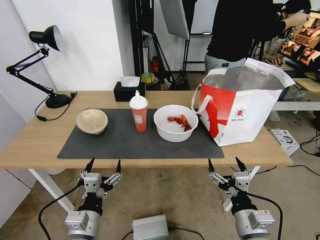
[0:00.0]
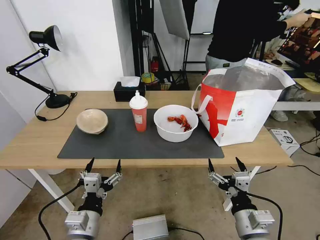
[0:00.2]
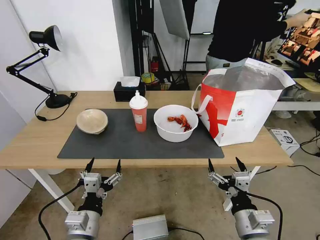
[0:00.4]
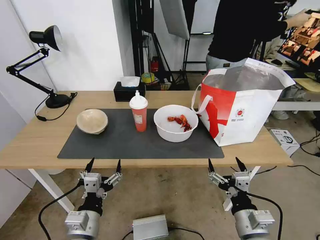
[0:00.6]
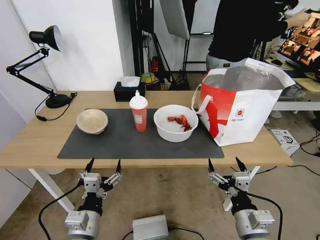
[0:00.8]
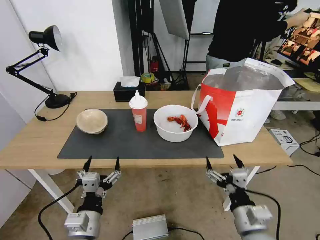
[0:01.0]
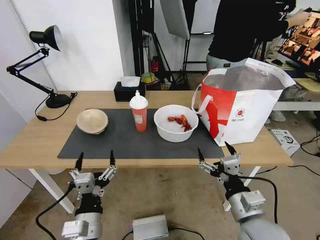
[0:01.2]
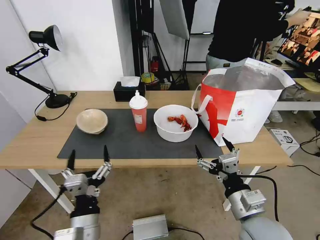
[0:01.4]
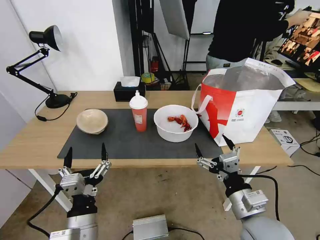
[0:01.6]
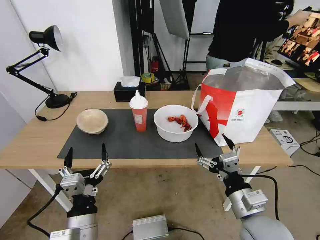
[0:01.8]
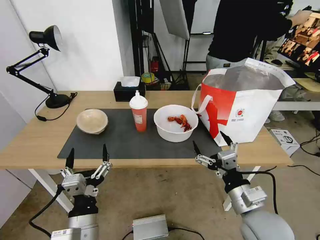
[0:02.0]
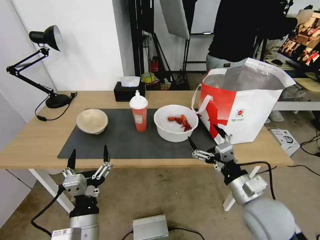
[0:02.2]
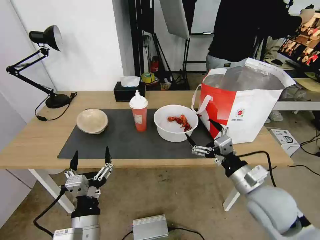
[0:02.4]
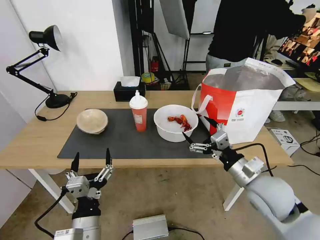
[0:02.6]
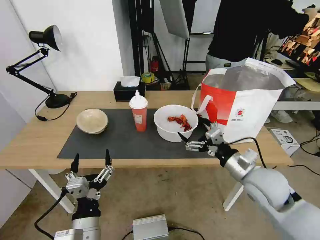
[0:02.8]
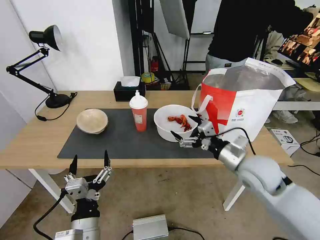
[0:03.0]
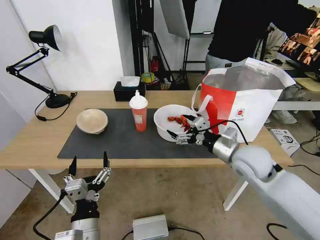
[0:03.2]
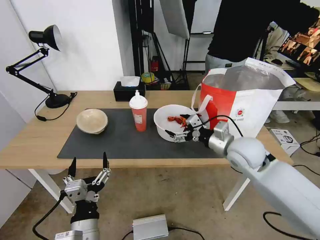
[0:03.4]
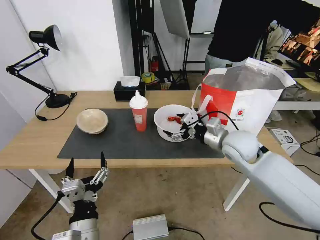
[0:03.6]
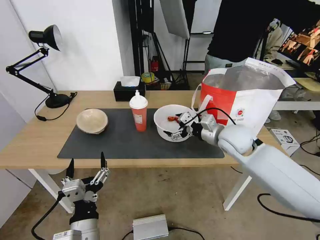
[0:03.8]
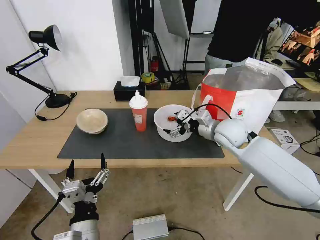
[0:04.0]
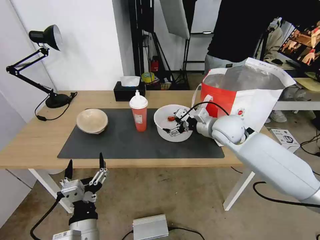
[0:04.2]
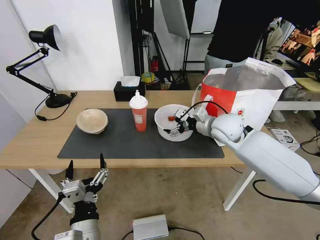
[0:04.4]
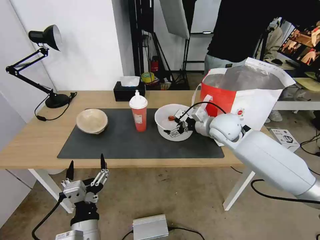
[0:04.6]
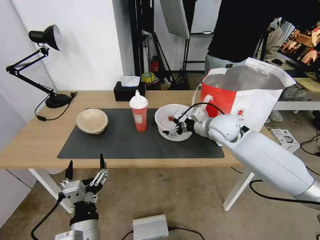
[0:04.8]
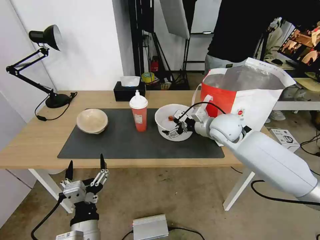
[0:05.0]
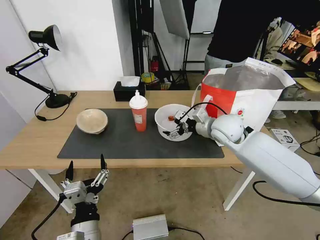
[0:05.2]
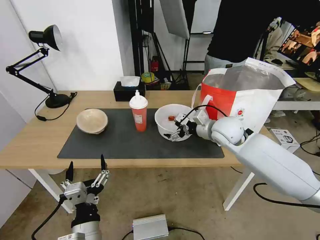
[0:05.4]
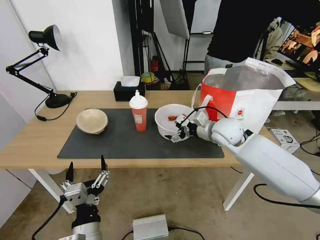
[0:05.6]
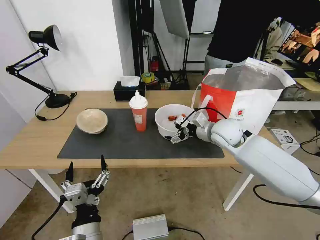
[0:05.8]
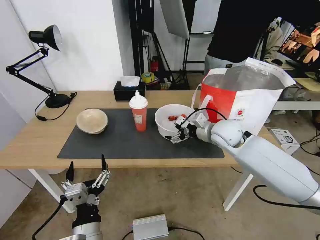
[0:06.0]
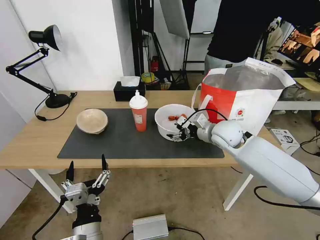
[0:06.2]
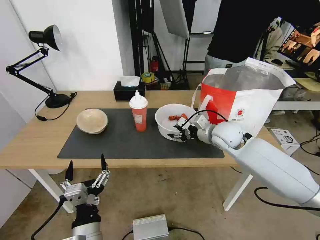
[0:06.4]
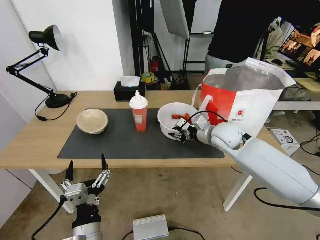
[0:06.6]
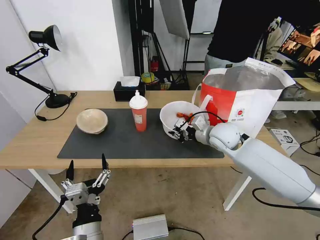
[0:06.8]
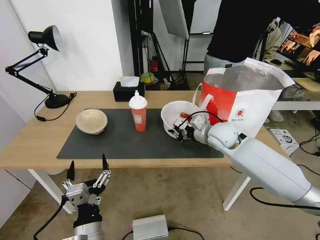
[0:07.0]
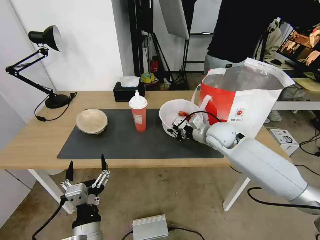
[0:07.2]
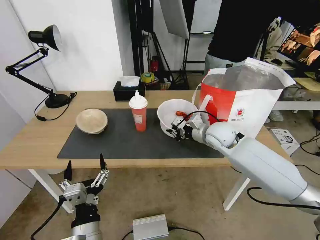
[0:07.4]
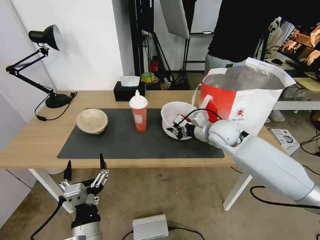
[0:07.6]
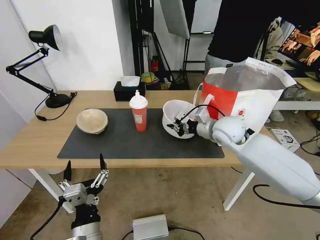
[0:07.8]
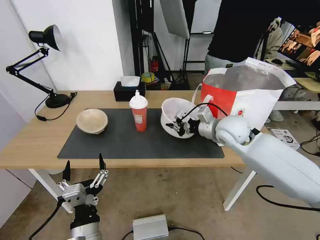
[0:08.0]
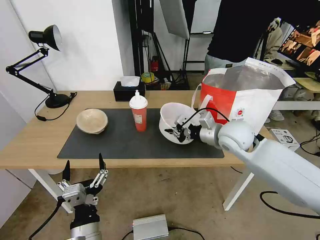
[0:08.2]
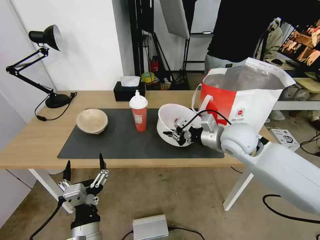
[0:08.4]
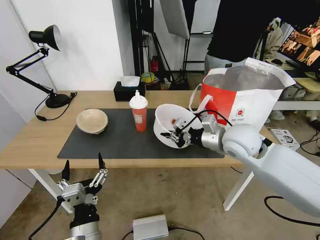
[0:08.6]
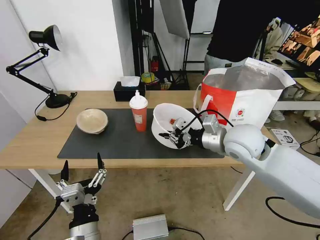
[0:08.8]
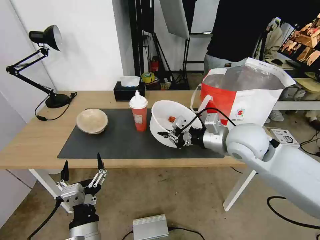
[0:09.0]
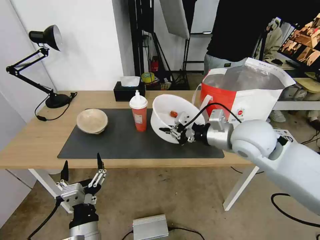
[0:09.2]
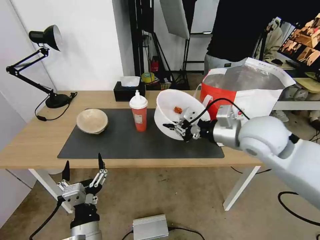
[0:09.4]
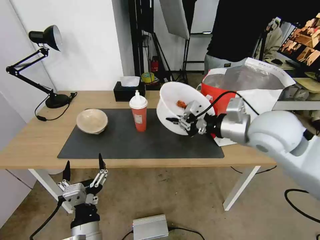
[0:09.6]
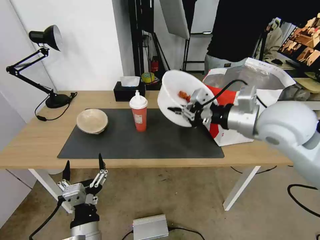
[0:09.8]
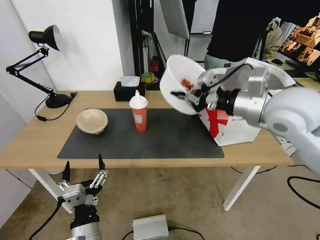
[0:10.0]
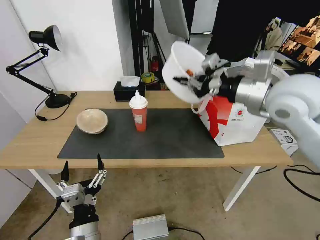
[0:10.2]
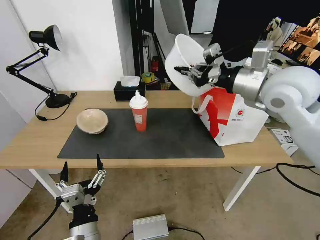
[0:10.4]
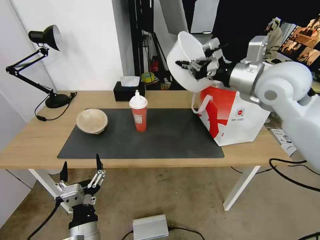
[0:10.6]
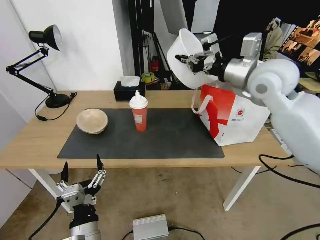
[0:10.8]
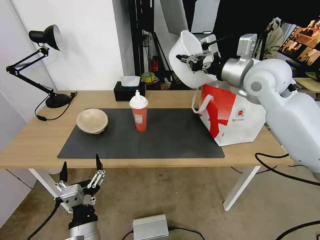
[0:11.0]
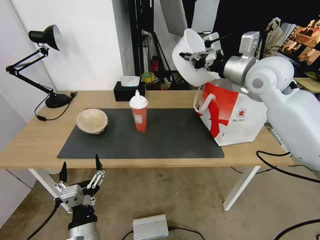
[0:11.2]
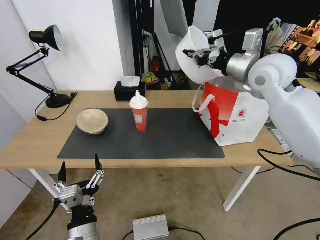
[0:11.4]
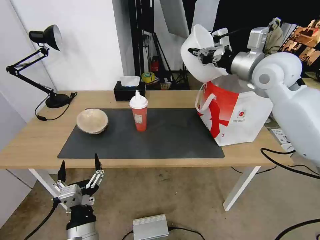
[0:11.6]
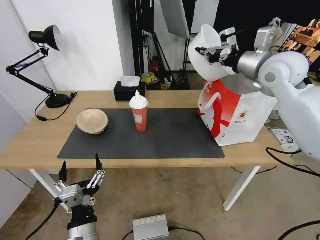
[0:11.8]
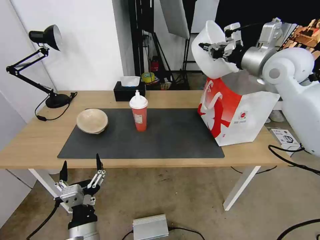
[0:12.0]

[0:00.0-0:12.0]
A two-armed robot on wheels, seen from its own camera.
Task of the whole recording: Pick up the trash from the table and place it into the takeout bag.
0:01.6 to 0:03.0: The right gripper travels forward by approximately 15 cm.
0:03.0 to 0:04.4: The right gripper heads forward, covering roughly 15 cm.
0:04.4 to 0:06.0: The grippers stay close to where they were, moving slightly.
0:06.0 to 0:07.6: The right gripper closes its fingers.
0:07.6 to 0:09.0: The right gripper is displaced backward and upward by some 10 cm.
0:09.0 to 0:10.4: The right gripper shifts roughly 15 cm upward.
0:10.4 to 0:12.0: The right gripper goes about 10 cm forward.

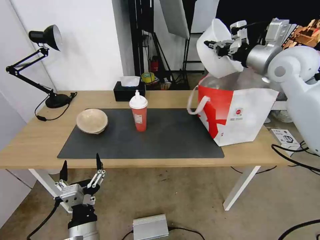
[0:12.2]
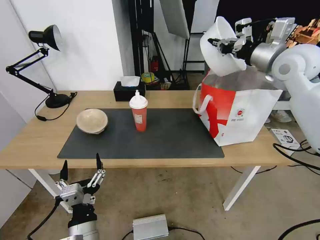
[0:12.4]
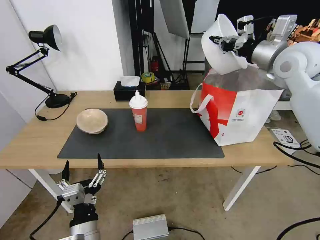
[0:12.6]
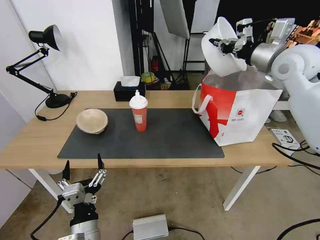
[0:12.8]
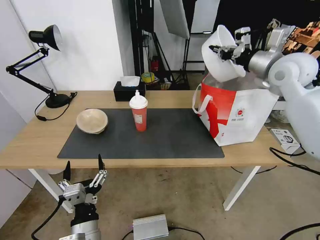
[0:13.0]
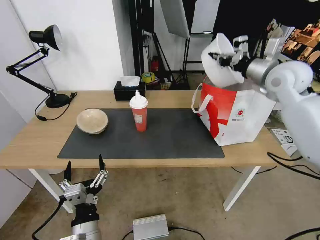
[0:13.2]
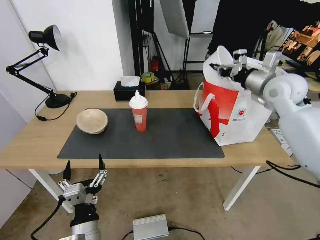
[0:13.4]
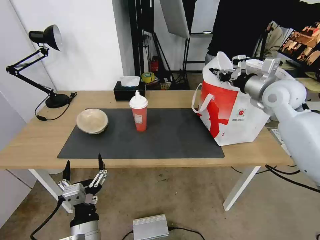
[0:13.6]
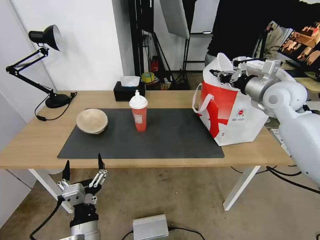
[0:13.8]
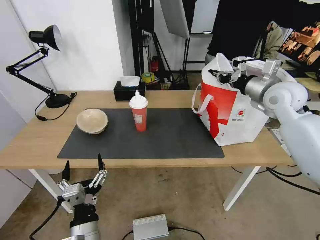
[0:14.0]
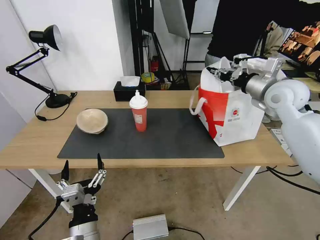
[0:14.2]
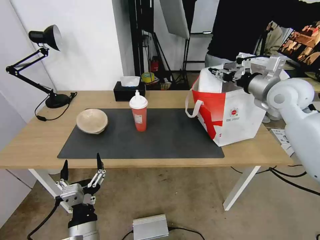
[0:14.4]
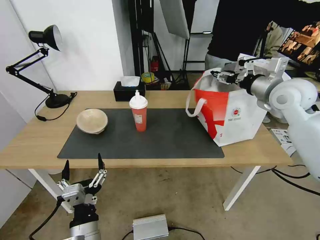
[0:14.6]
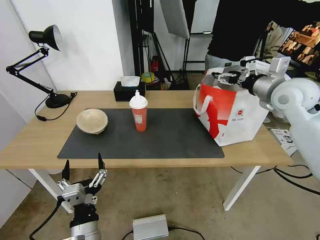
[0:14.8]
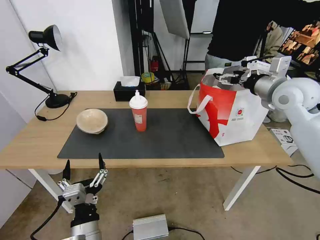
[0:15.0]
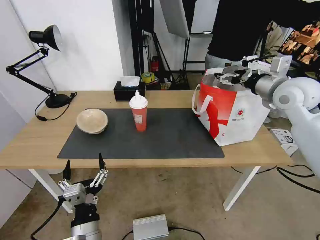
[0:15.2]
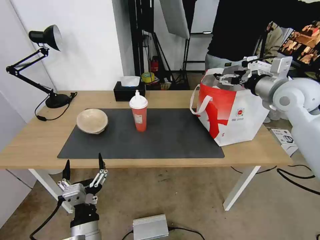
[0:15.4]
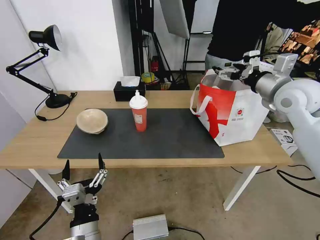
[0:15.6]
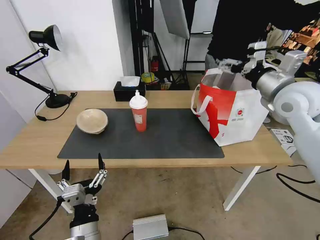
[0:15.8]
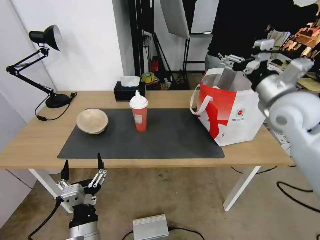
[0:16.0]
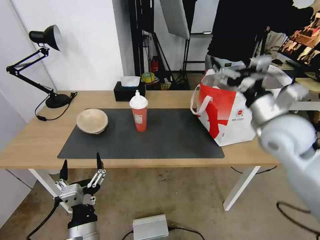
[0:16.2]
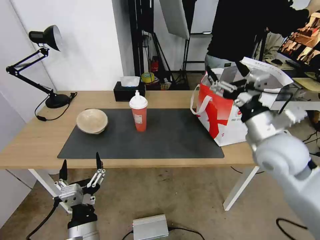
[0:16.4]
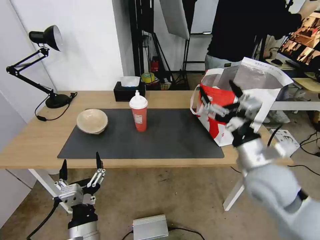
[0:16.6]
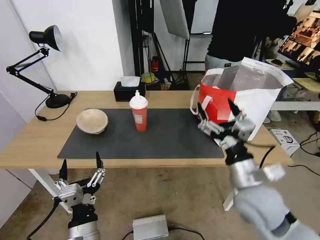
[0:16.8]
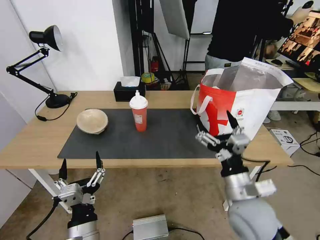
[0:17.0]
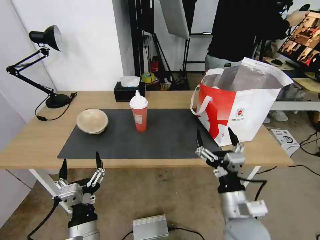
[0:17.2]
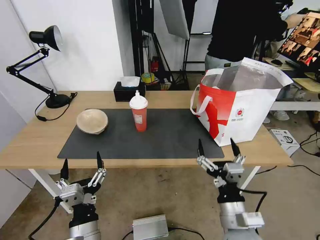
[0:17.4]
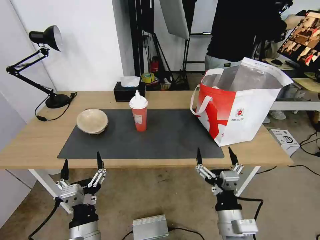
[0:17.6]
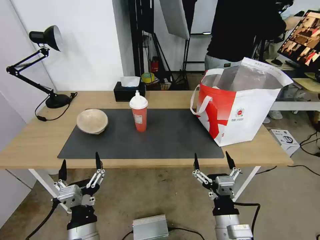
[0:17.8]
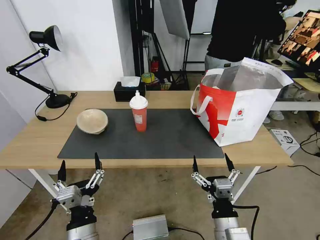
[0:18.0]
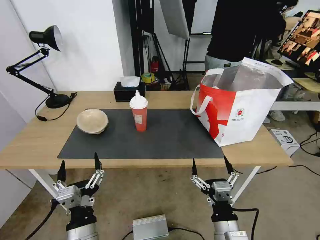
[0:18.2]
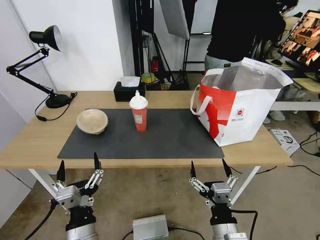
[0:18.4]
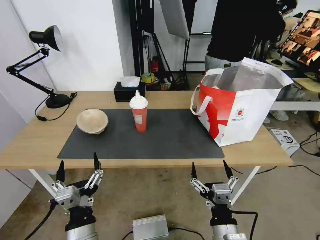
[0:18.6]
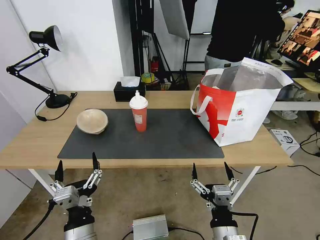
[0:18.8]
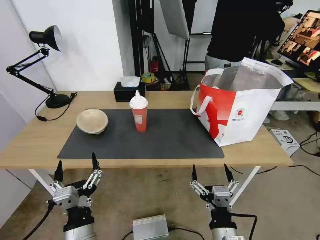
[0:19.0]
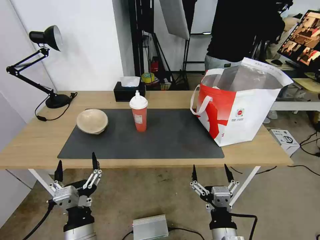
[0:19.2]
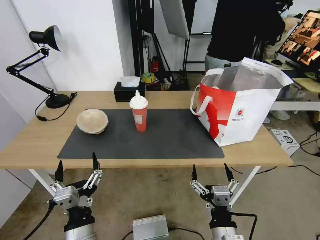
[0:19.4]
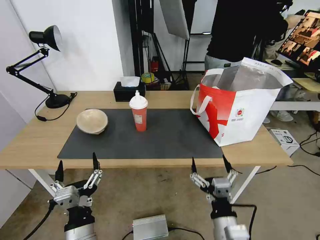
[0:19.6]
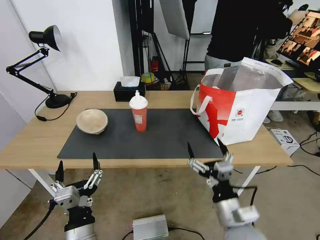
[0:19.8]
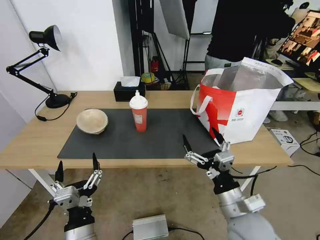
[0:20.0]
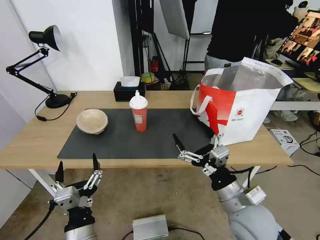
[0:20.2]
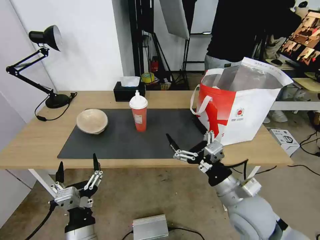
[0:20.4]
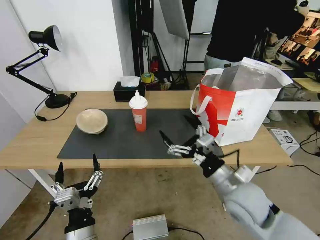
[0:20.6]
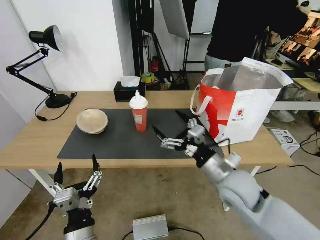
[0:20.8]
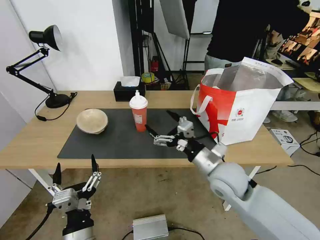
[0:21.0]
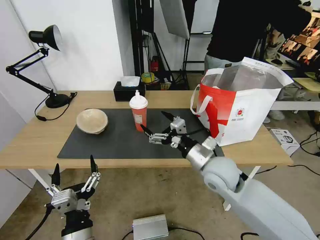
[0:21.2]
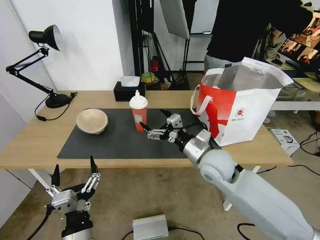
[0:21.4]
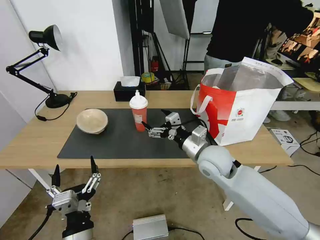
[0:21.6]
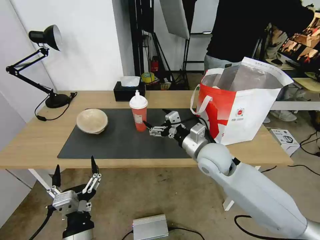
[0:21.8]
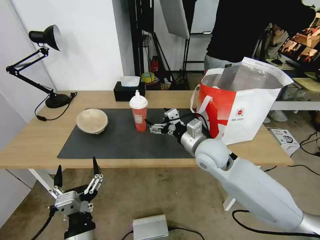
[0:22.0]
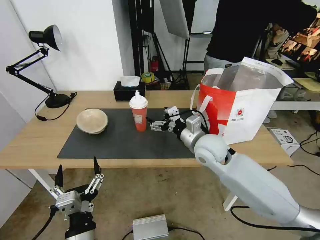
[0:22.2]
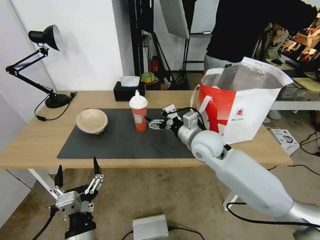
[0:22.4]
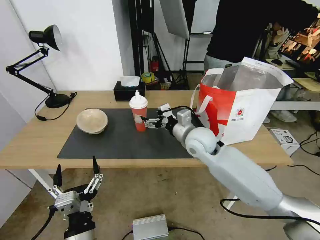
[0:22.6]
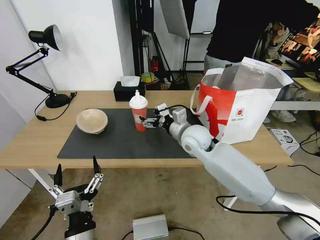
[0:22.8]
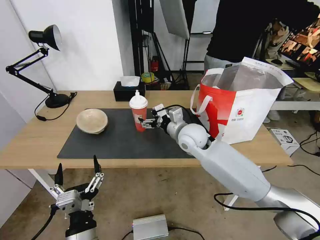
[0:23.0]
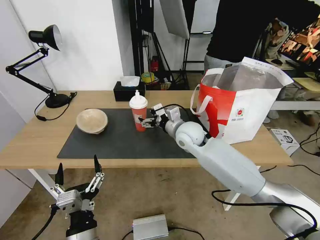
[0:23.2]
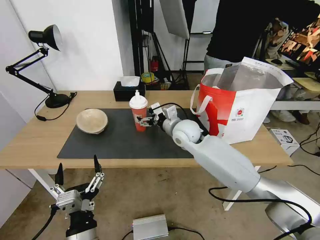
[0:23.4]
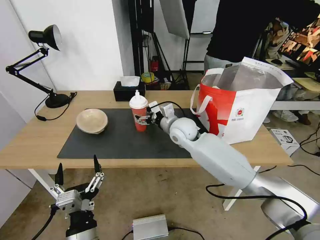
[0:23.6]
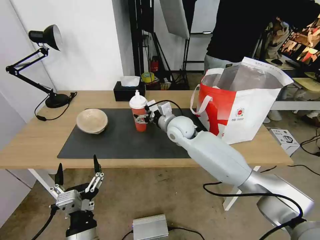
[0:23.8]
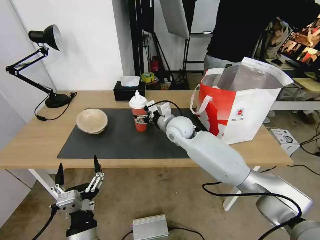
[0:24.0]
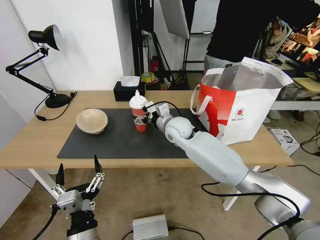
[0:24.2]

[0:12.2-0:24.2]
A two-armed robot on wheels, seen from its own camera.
Task of the whole recording: Pick up the trash from the table and place it into the takeout bag.
0:12.2 to 0:13.8: The right gripper moves downward, approximately 10 cm.
0:13.8 to 0:15.2: The right gripper opens.
0:15.2 to 0:16.6: The right gripper is displaced backward, downward and to the left by about 25 cm.
0:16.6 to 0:18.2: The right gripper heads backward, downward and to the left, covering roughly 25 cm.
0:18.2 to 0:19.8: The right gripper shifts by roughly 5 cm.
0:19.8 to 0:21.2: The right gripper goes about 15 cm forward.
0:21.2 to 0:22.6: The right gripper goes approximately 10 cm forward.
0:22.6 to 0:24.2: The right gripper travels forward and to the left by approximately 10 cm.
